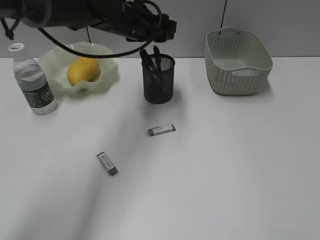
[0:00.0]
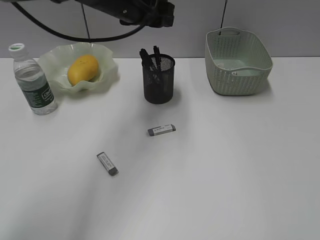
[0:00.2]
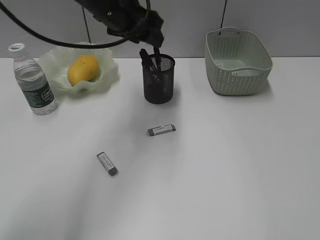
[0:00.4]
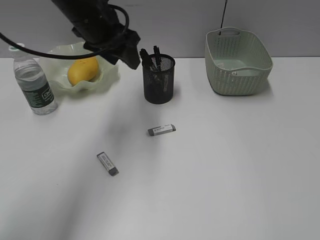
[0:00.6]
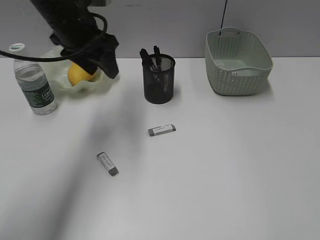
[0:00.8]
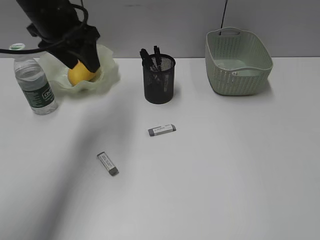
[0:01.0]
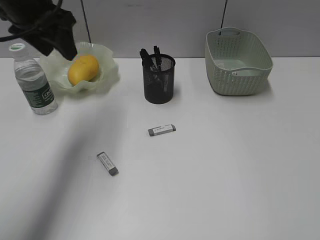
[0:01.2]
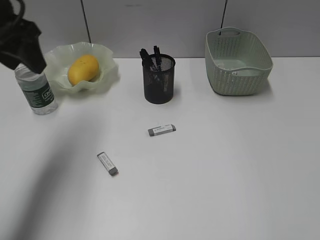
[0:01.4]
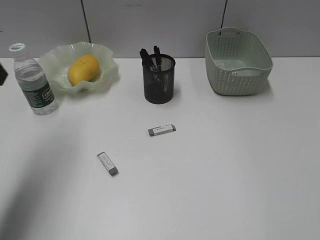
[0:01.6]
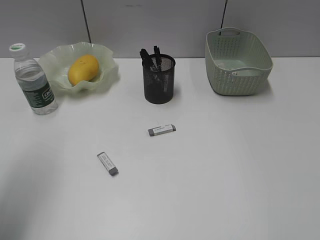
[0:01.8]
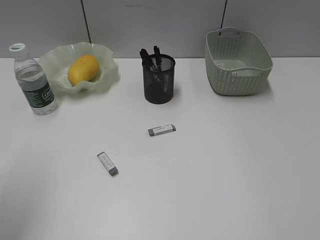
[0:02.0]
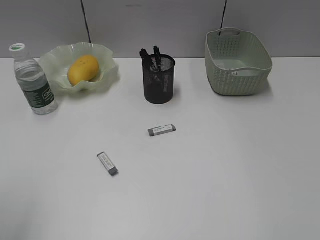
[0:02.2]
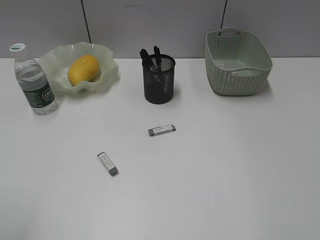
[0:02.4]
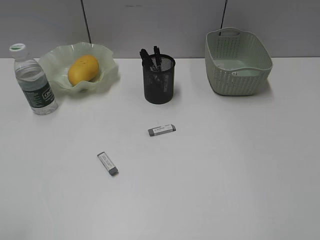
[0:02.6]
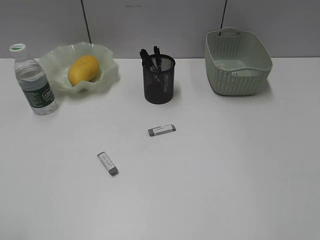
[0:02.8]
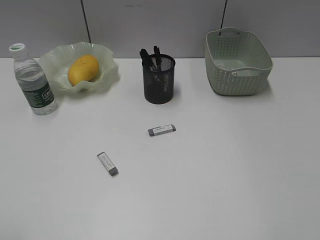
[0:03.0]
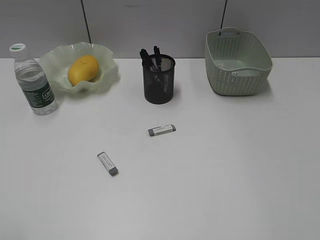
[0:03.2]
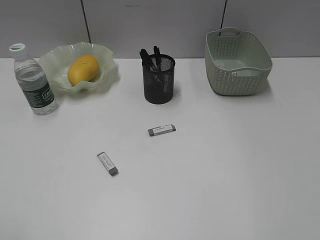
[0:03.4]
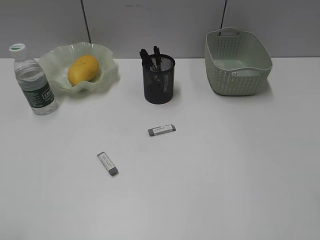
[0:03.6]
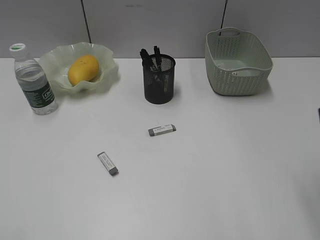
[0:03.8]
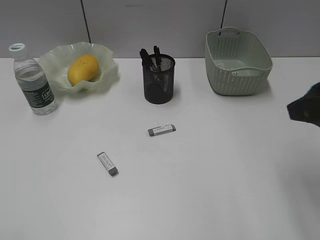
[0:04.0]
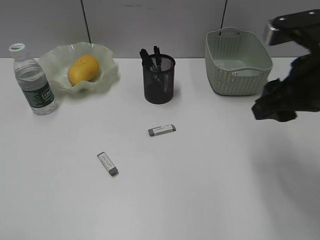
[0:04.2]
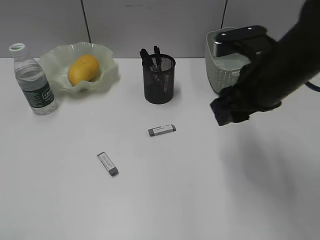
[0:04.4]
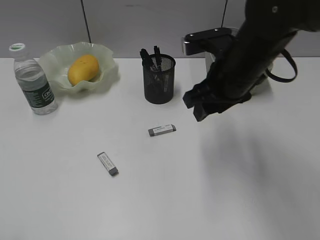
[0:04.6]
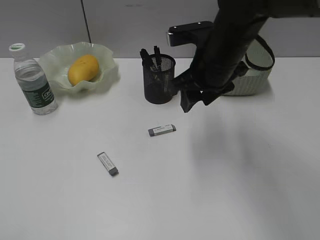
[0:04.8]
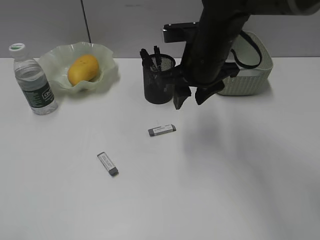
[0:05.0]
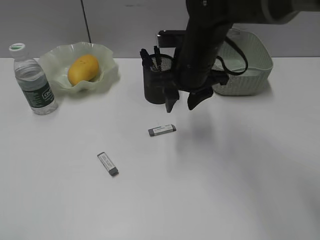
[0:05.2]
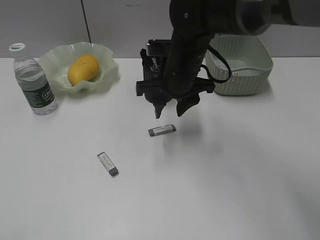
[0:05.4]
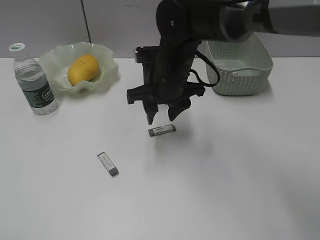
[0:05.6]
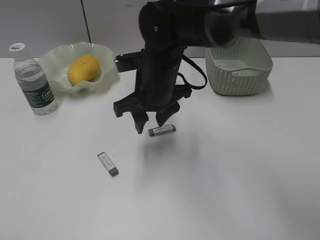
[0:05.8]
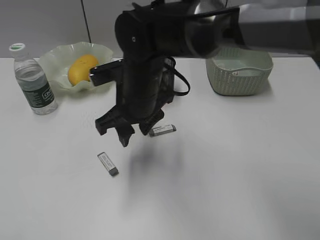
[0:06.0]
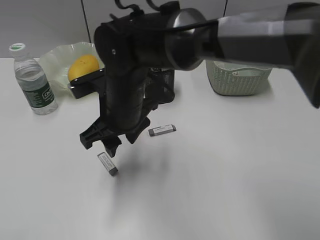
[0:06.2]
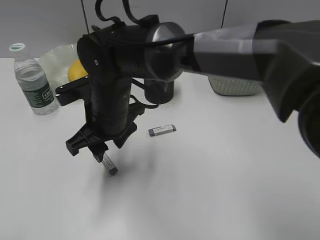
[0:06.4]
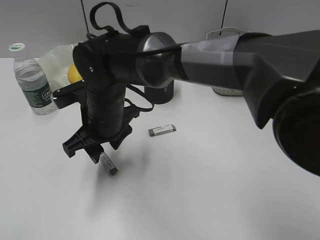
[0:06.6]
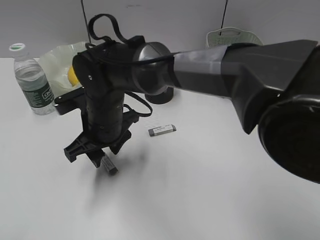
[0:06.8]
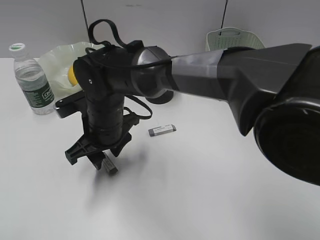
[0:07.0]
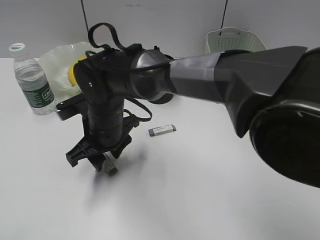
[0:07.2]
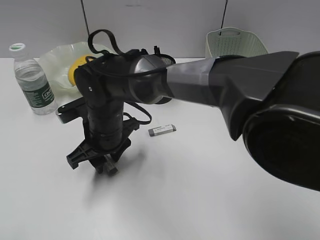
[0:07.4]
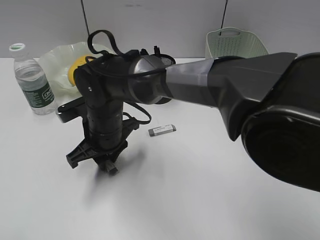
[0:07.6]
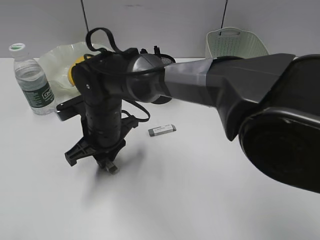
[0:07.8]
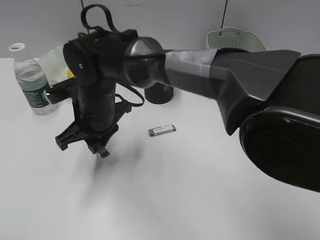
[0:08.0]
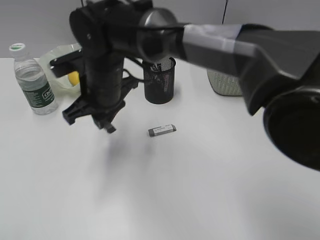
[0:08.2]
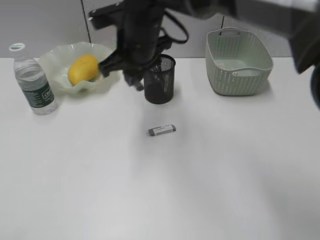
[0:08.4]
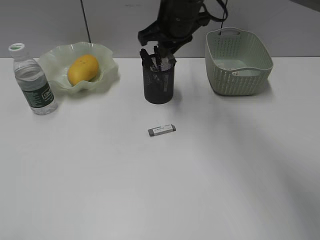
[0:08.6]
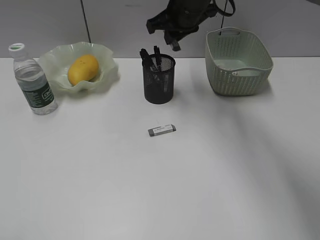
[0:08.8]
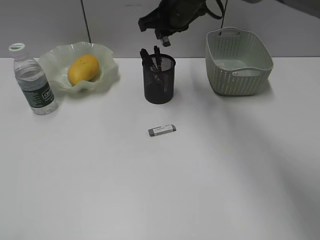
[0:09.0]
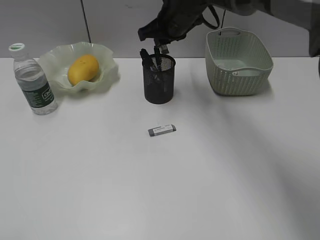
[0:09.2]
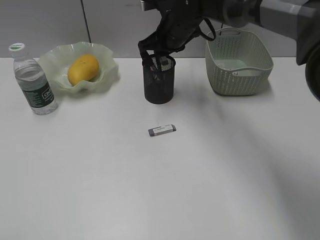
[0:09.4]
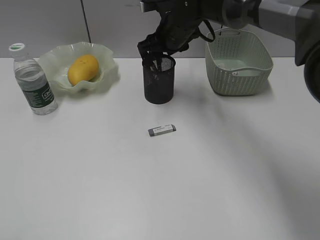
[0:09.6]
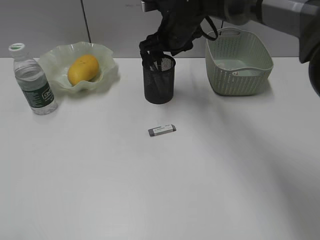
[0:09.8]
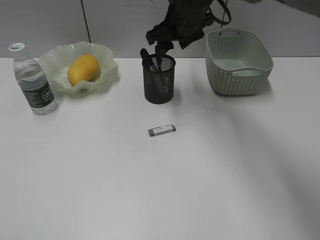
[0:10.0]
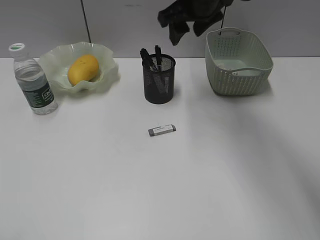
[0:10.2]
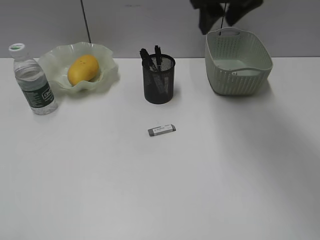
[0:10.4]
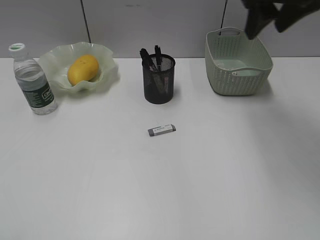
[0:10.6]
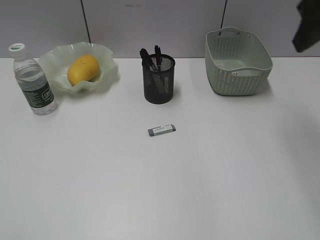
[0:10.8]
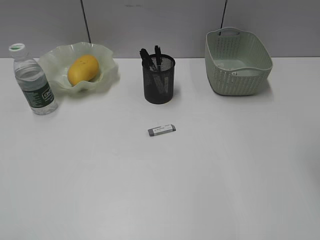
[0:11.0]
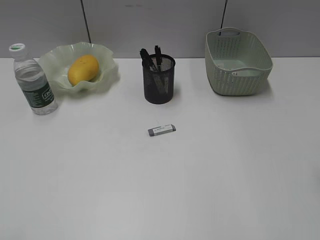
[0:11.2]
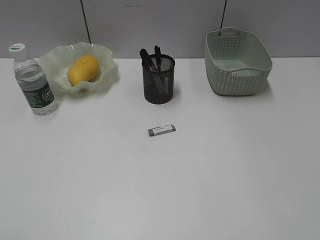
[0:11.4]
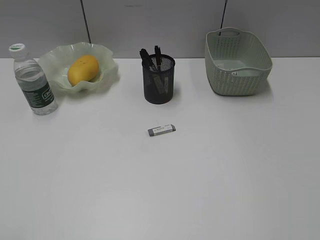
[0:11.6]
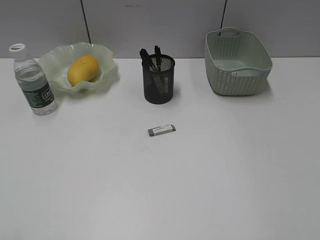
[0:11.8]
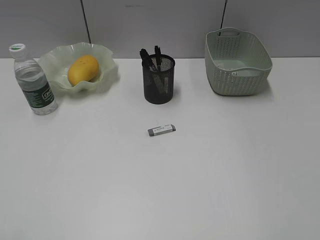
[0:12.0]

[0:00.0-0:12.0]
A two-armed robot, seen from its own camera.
Step, 0:00.0 to 0:07.6: Grasp the eraser with right gripper.
Step, 0:07.8 to 0:09.6: Place the eraser in pen holder with right gripper.
0:00.0 to 0:01.6: The left gripper moves to the left, backward and upward, about 30 cm.
0:01.6 to 0:03.0: The left gripper travels backward by about 25 cm.
0:03.0 to 0:04.4: The right gripper moves forward and to the left, some 25 cm.
0:04.4 to 0:06.0: The right gripper moves to the left, some 20 cm.
0:06.0 to 0:07.6: The right gripper heads downward and to the left, covering some 10 cm, and closes its fingers.
0:07.6 to 0:09.0: The right gripper goes roughly 25 cm forward, upward and to the right.
0:09.0 to 0:10.4: The right gripper is displaced upward, to the right and backward by approximately 15 cm, and opens up.
0:10.4 to 0:12.0: The right gripper is displaced backward and to the right by approximately 40 cm.

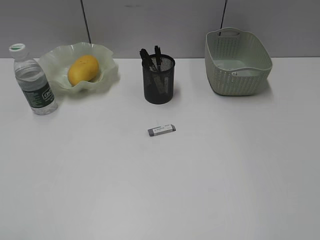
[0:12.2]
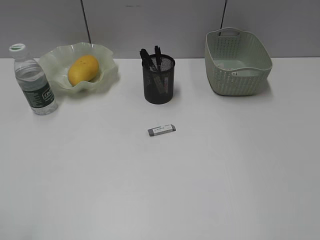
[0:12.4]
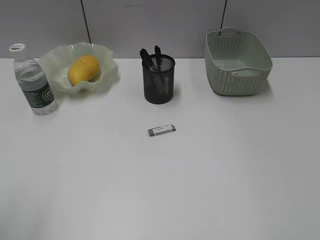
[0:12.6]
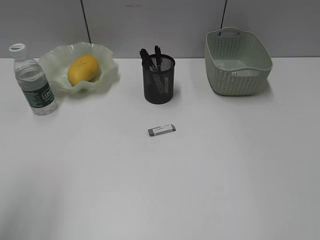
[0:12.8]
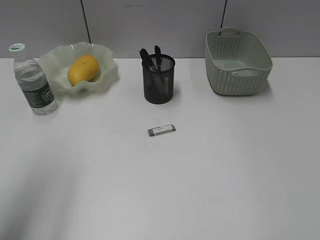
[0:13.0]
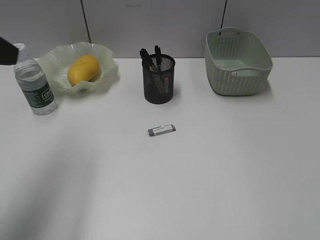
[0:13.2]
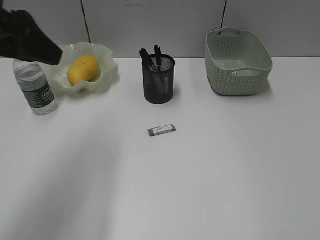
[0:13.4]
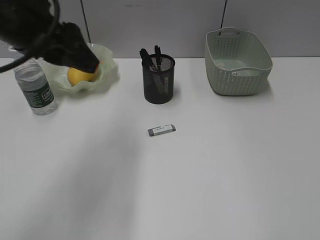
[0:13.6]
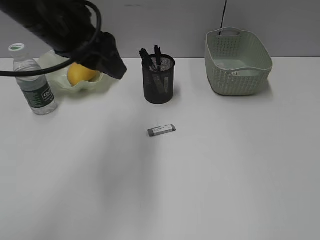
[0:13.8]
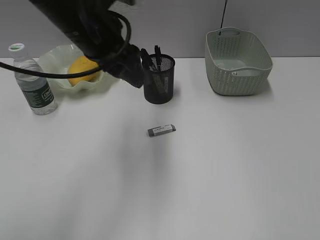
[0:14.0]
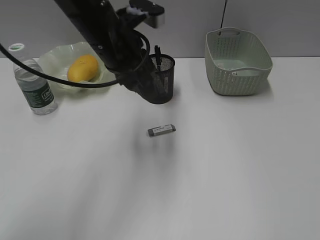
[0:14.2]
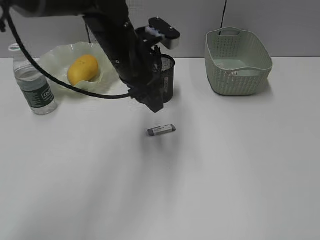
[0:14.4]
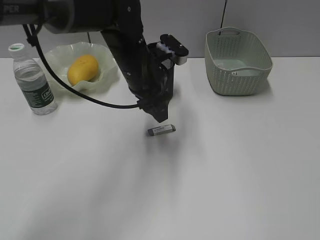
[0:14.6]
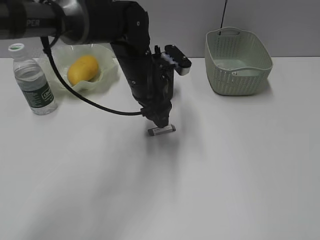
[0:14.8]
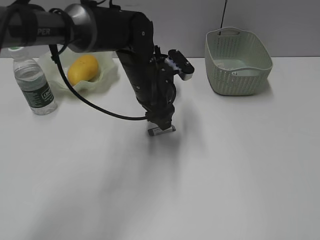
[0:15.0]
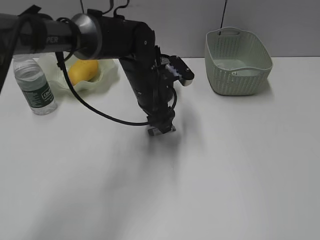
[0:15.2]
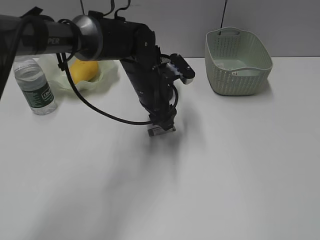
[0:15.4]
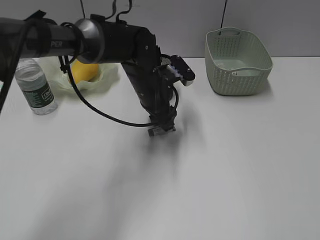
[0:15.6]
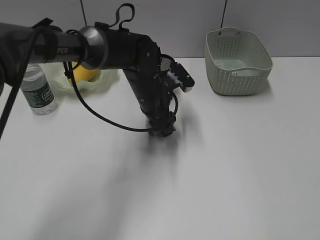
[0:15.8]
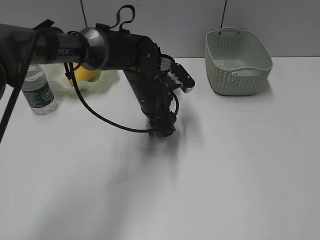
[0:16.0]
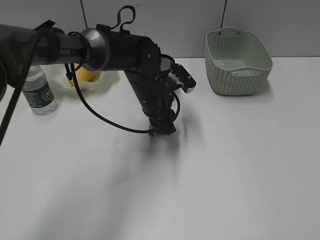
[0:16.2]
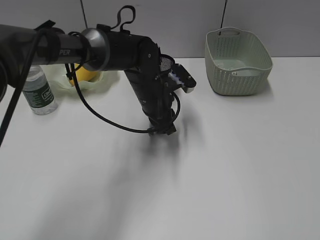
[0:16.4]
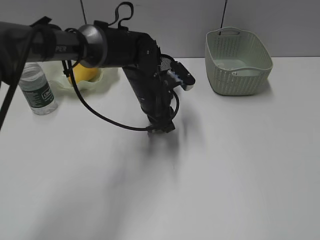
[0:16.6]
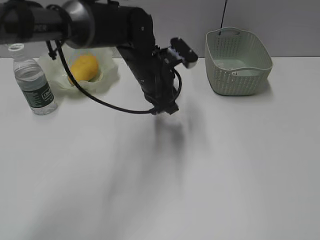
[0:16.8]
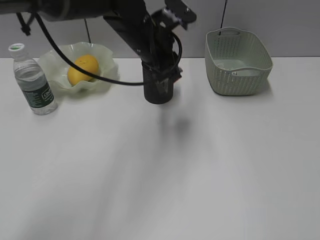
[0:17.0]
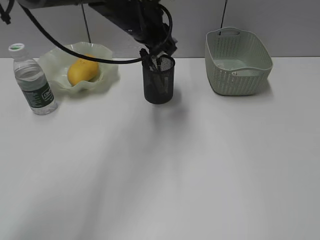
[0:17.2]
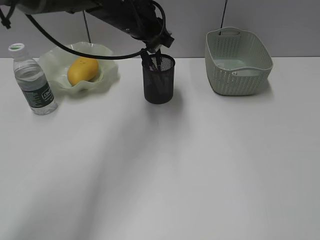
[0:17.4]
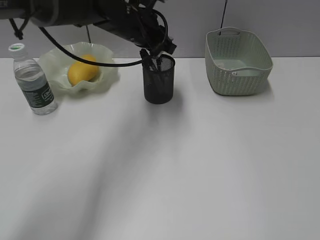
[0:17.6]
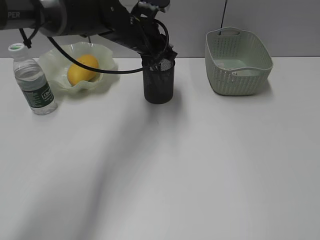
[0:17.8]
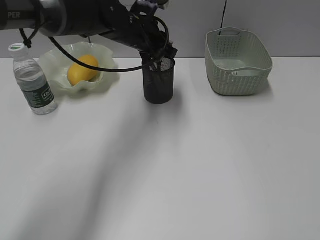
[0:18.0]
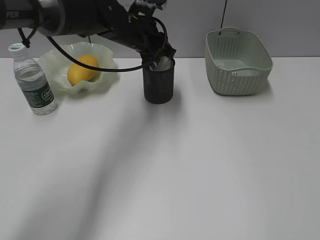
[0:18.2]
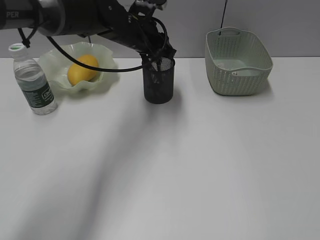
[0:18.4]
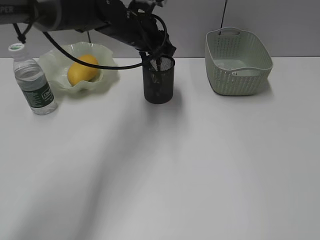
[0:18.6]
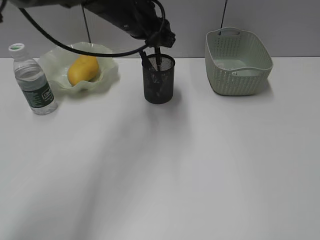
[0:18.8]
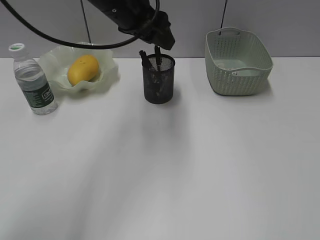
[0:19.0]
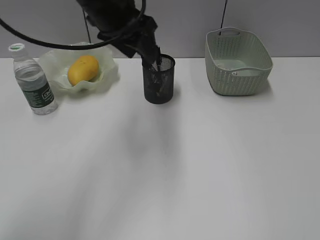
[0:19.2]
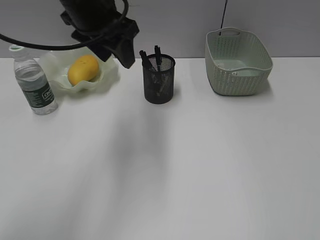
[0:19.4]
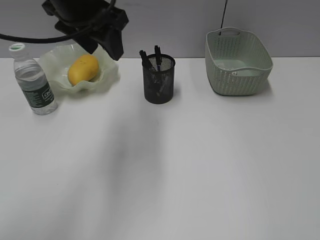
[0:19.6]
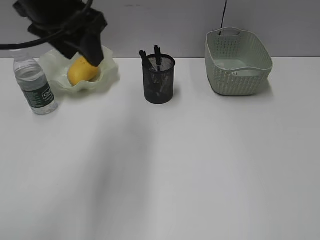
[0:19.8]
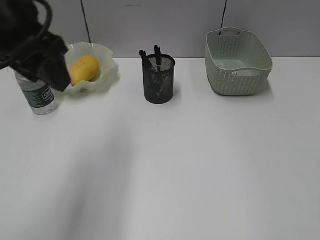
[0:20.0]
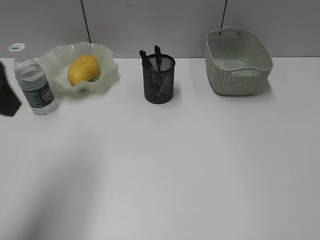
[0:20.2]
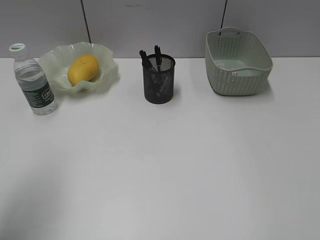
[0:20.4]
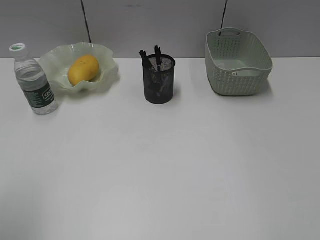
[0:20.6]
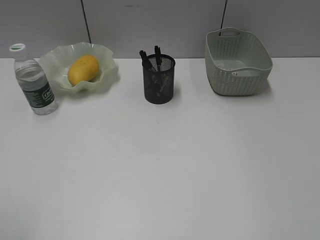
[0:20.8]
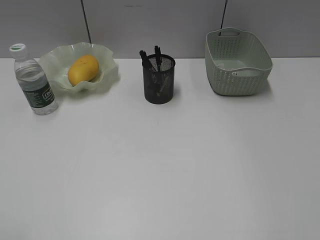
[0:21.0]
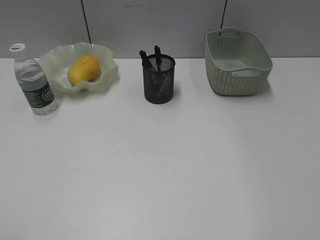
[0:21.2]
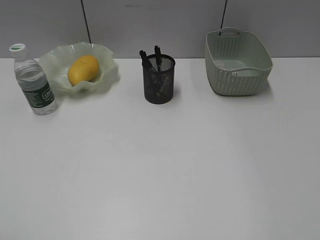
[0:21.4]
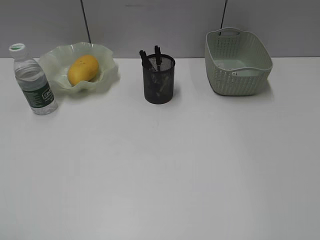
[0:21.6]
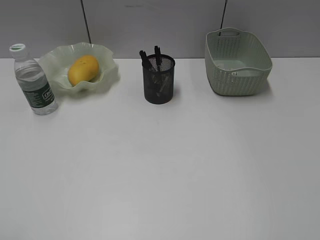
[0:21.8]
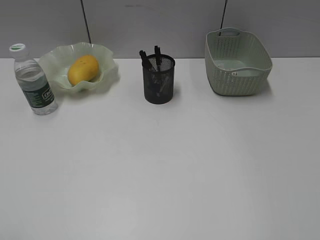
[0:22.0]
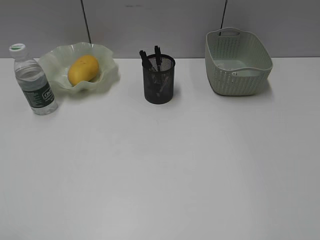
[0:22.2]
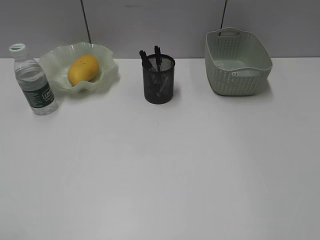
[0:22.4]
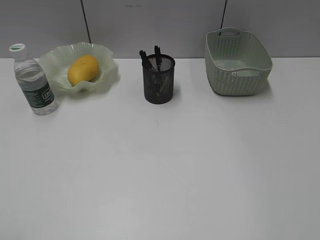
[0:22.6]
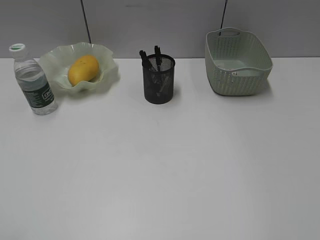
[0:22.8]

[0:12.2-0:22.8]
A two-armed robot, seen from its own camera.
Step, 0:12.2 to 0:16.4: Grasp the eraser with left gripper.
Step, 0:16.6 to 0:18.4: Place the eraser in pen holder with left gripper.
0:12.2 to 0:13.8: The left gripper is displaced forward and to the right by approximately 35 cm.
0:13.8 to 0:15.2: The left gripper travels downward, to the right and forward by roughly 20 cm.
0:15.2 to 0:16.8: The left gripper closes its fingers.
0:16.8 to 0:18.2: The left gripper moves forward, some 5 cm.
0:18.2 to 0:19.8: The left gripper shifts some 20 cm backward, upward and to the left, and opens.
0:19.8 to 0:21.2: The left gripper goes approximately 35 cm backward and to the left.
